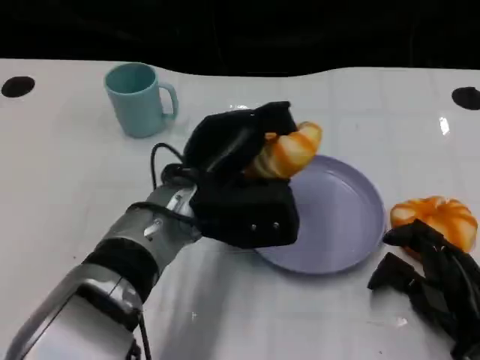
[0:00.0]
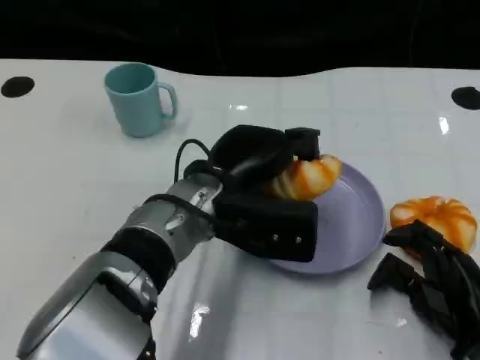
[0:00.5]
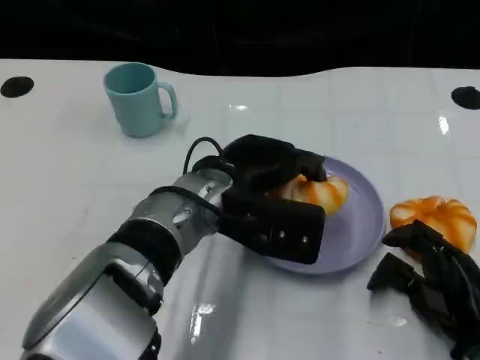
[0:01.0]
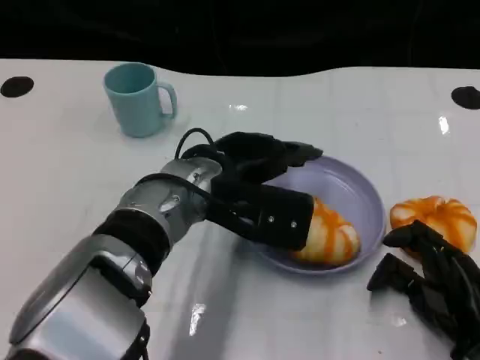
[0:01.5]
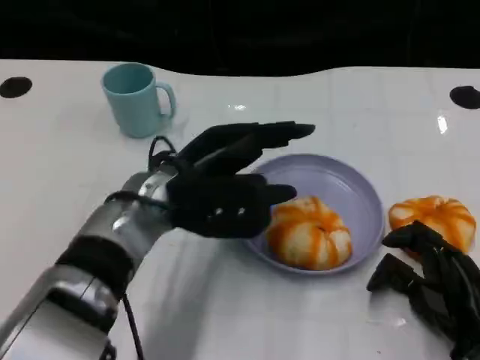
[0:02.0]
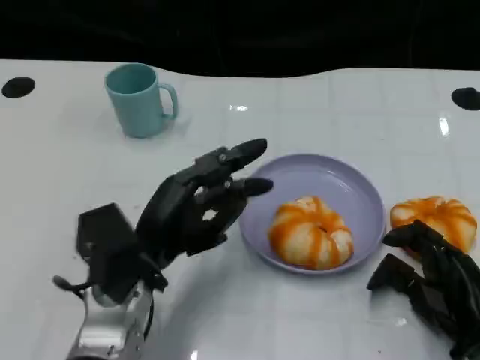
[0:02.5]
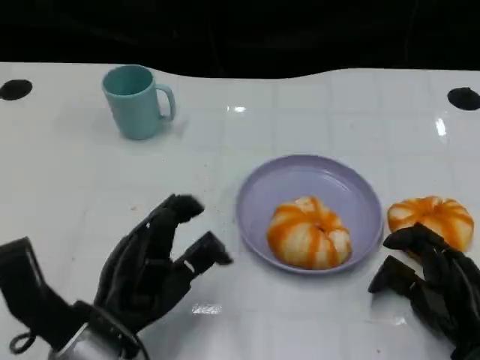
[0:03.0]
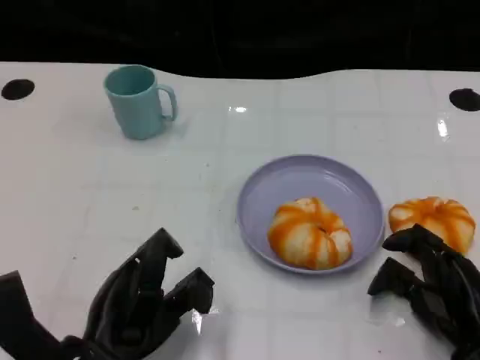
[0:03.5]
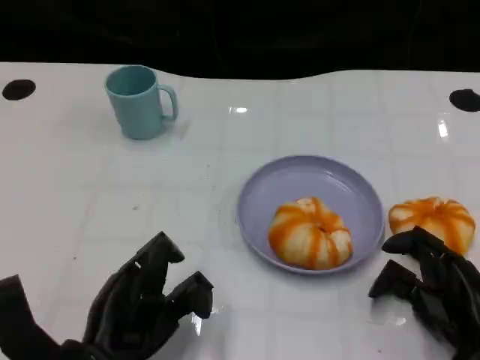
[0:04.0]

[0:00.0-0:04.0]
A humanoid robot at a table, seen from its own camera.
Task of the whole recording: Grasp the bread from the table and place it into the plate.
0:02.0 to 0:04.0: The left hand travels backward, downward and to the left by some 15 cm.
